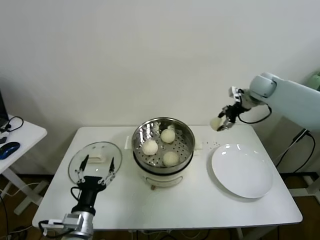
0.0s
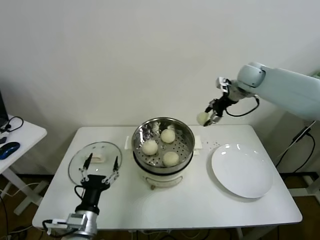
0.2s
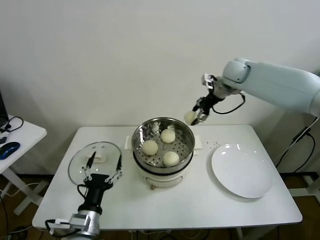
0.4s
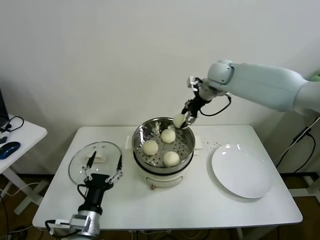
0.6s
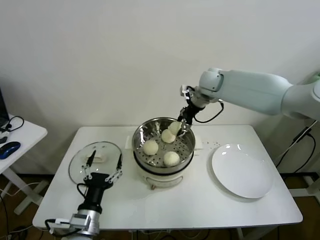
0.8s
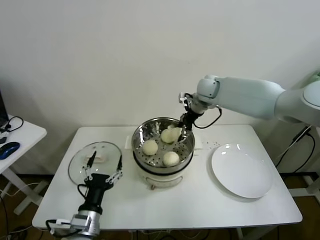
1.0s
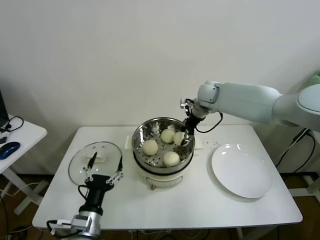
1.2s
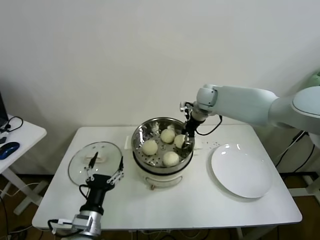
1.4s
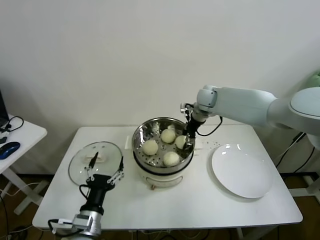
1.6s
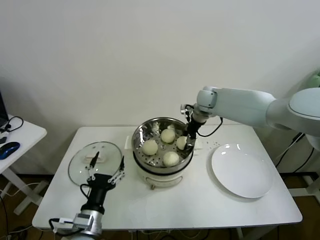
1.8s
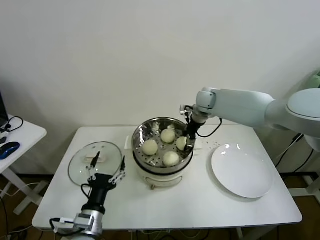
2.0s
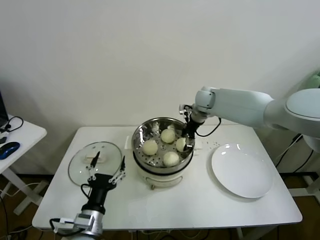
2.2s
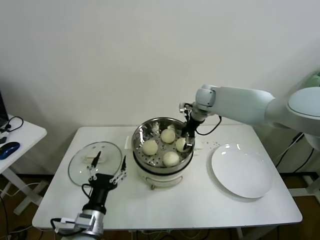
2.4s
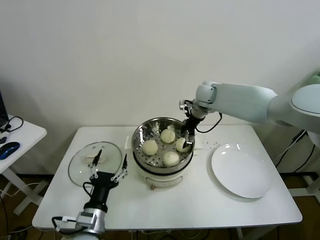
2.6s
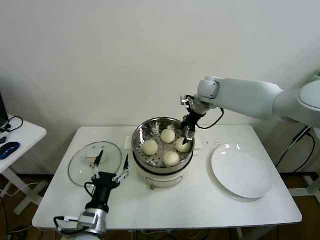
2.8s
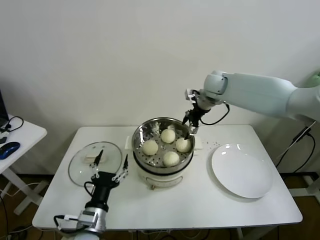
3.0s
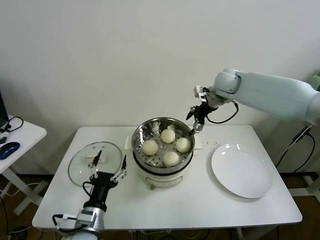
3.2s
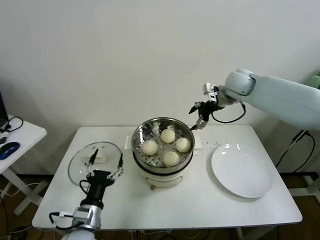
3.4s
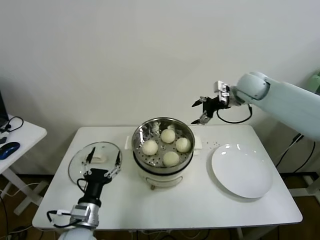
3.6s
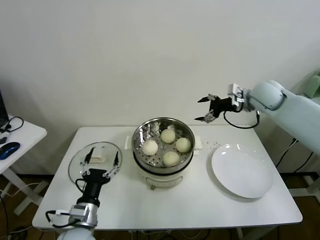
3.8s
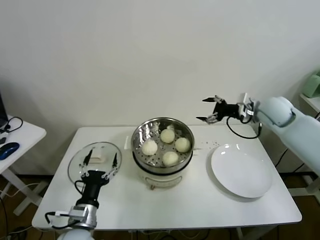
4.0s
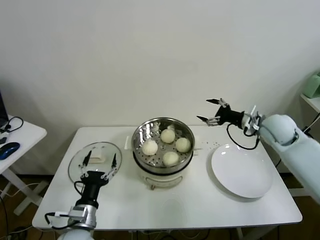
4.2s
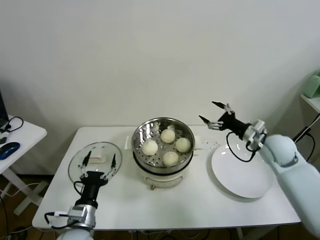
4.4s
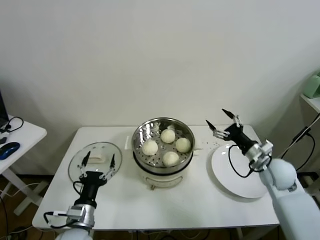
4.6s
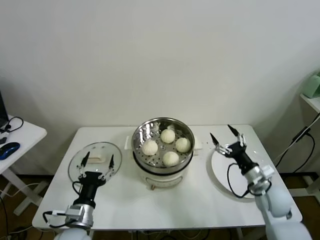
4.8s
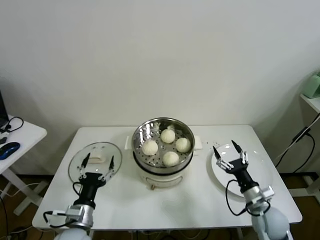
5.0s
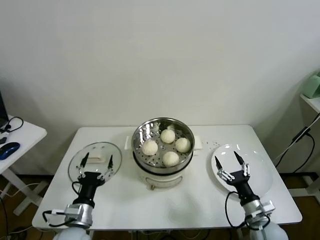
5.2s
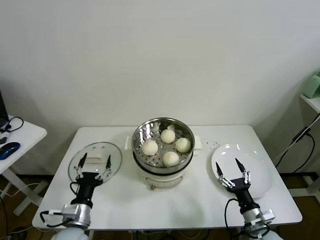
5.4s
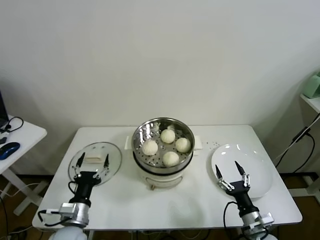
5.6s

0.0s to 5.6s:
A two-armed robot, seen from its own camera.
Task of the whole recording: take steamed baozi put them in steamer.
Step, 0.0s to 2.4s: Place the baozi on the steamer with right gripper.
0.0s to 1.4s: The right gripper moves to the left, approximately 20 cm.
1.4s to 2.8s: The right gripper opens.
2.8s to 4.2s: The right gripper heads to the right and backward, covering approximately 25 cm.
4.2s to 5.6s: The right gripper heads backward and downward, covering roughly 40 cm.
